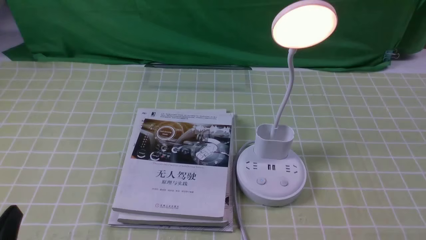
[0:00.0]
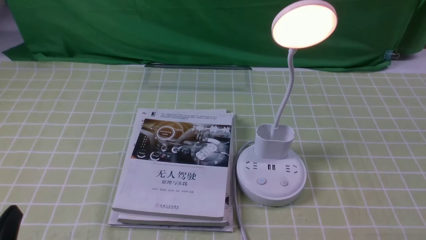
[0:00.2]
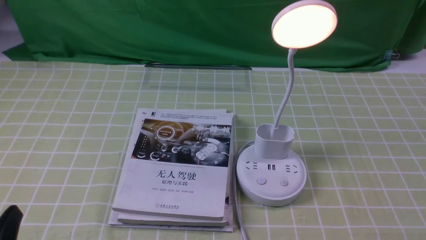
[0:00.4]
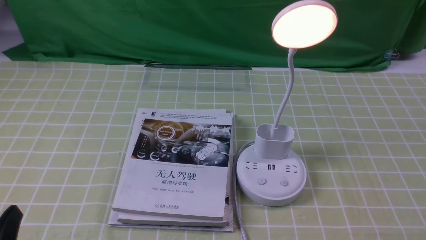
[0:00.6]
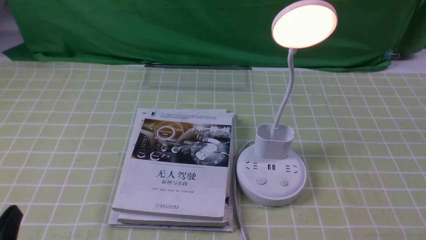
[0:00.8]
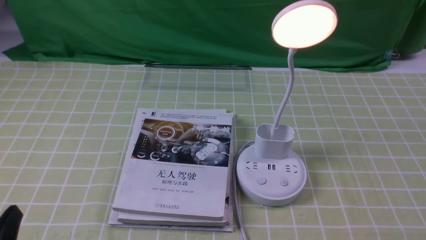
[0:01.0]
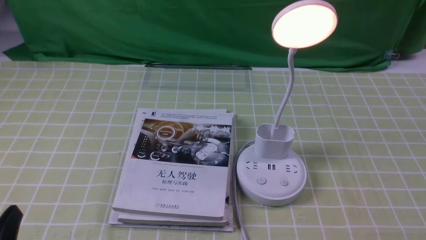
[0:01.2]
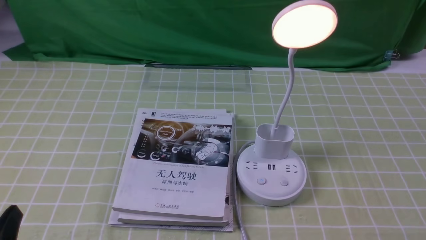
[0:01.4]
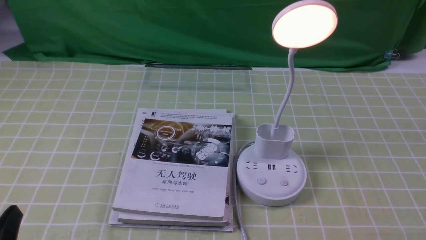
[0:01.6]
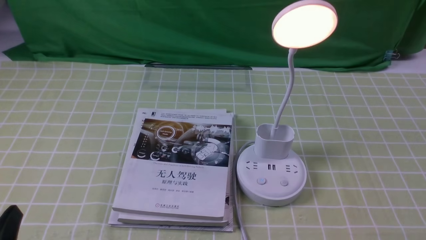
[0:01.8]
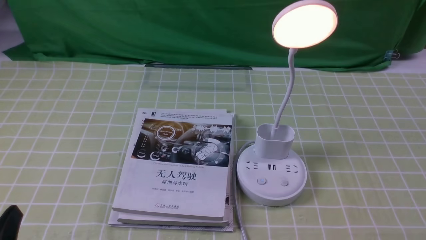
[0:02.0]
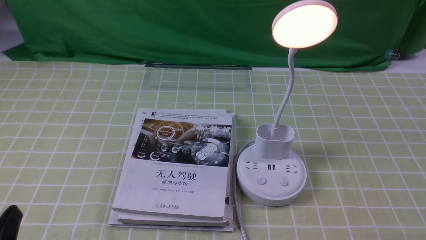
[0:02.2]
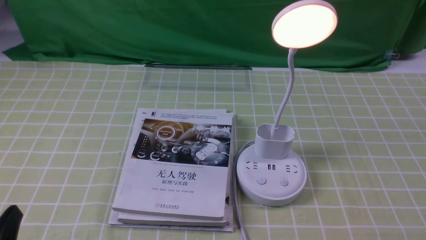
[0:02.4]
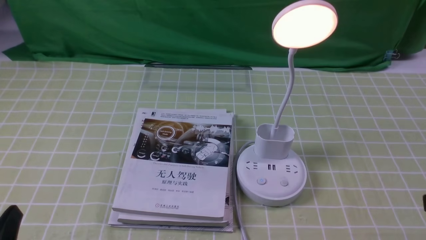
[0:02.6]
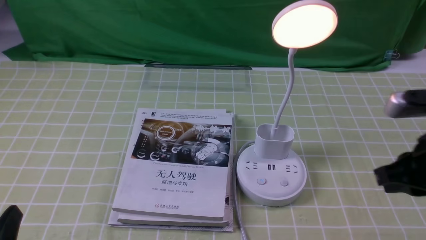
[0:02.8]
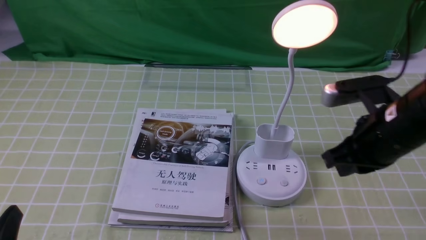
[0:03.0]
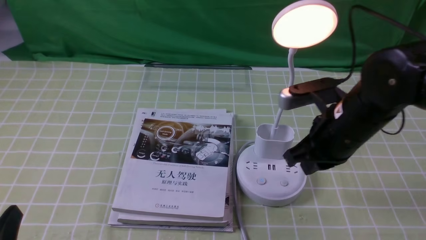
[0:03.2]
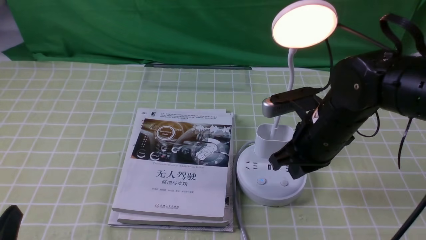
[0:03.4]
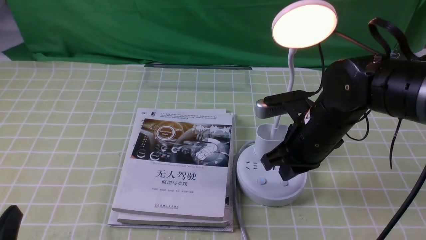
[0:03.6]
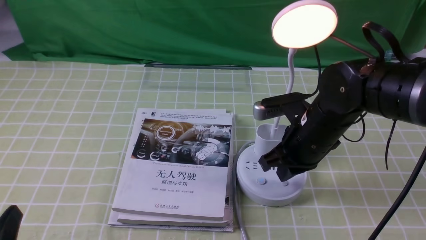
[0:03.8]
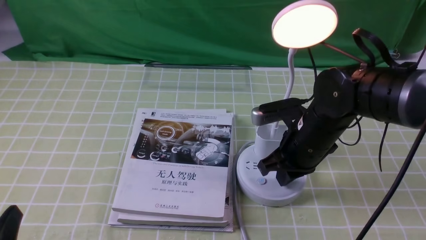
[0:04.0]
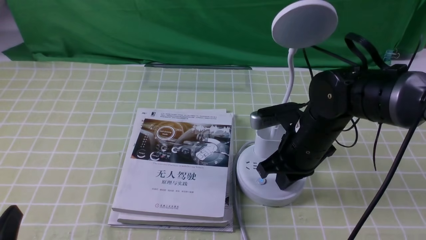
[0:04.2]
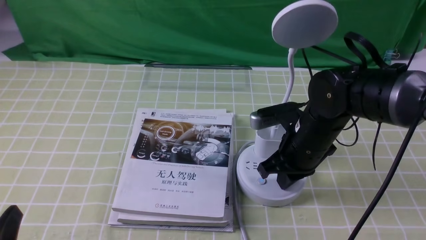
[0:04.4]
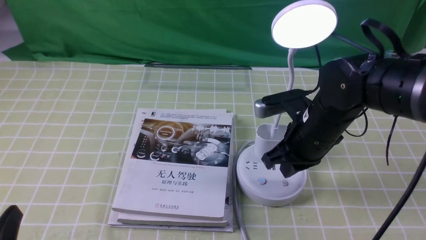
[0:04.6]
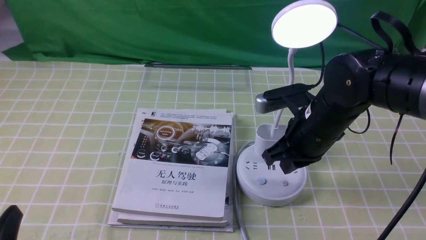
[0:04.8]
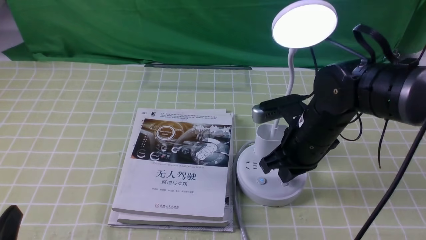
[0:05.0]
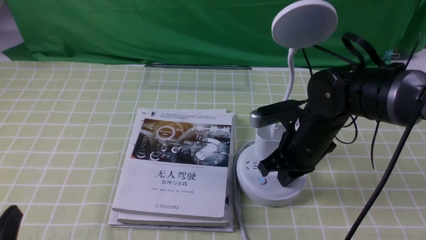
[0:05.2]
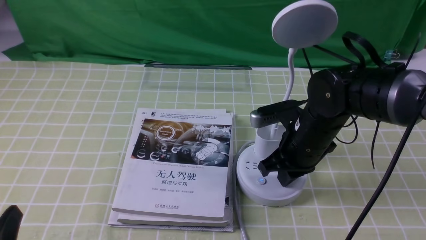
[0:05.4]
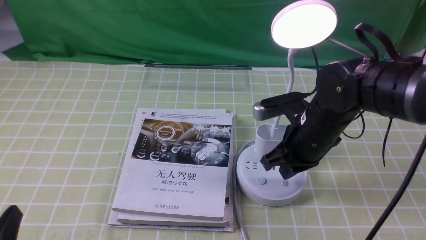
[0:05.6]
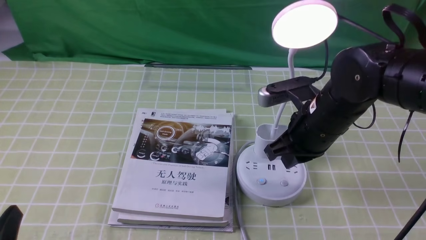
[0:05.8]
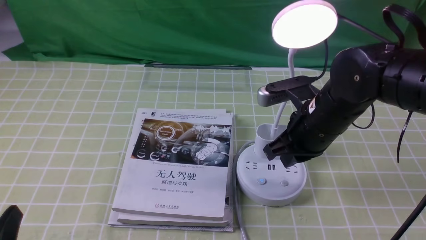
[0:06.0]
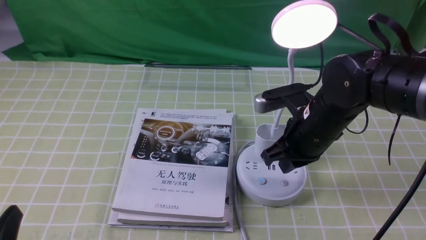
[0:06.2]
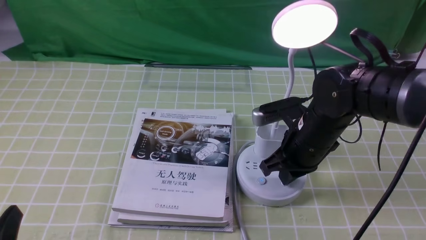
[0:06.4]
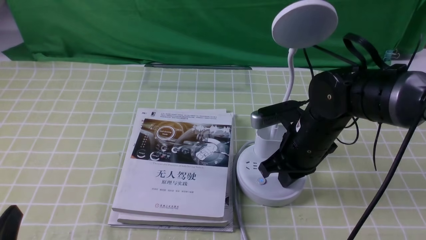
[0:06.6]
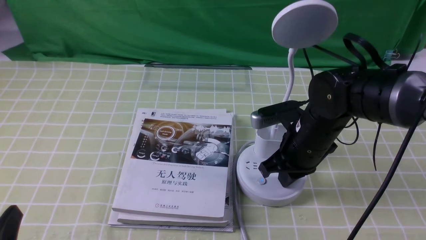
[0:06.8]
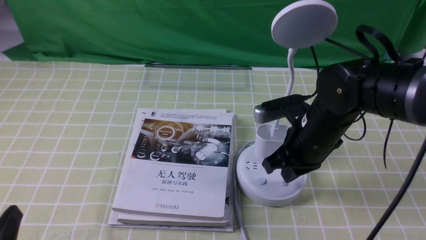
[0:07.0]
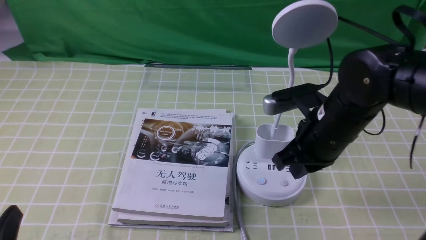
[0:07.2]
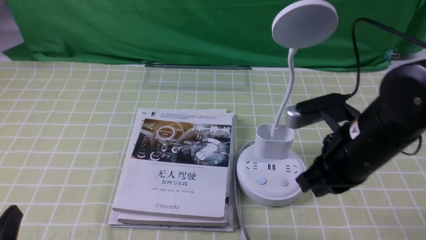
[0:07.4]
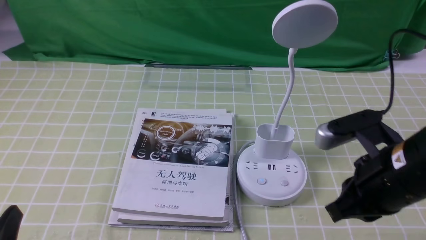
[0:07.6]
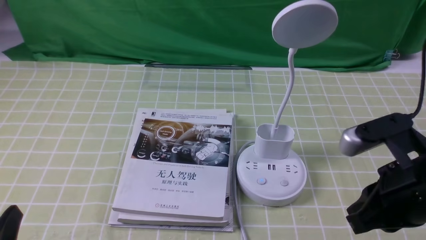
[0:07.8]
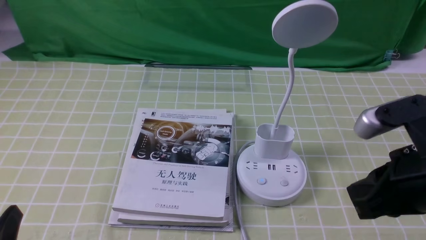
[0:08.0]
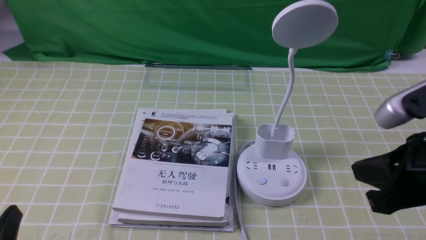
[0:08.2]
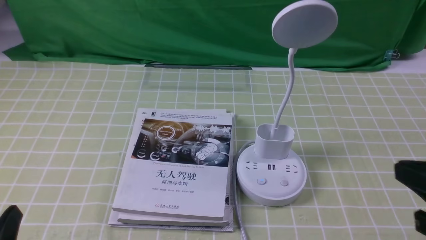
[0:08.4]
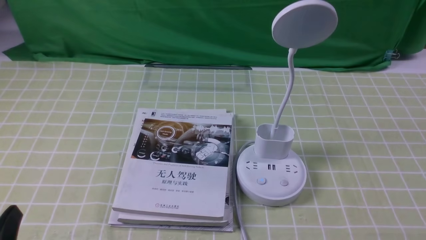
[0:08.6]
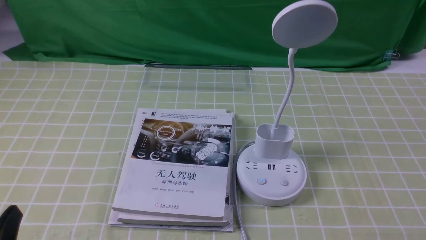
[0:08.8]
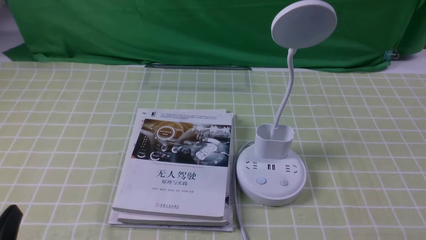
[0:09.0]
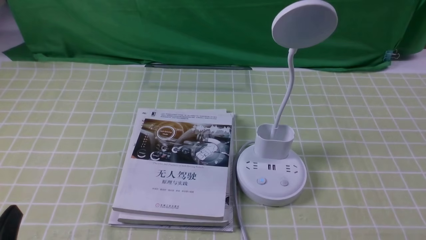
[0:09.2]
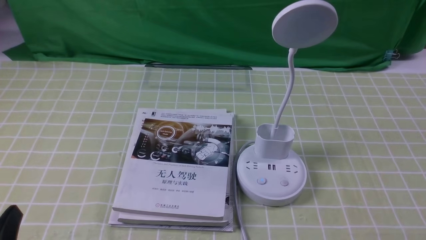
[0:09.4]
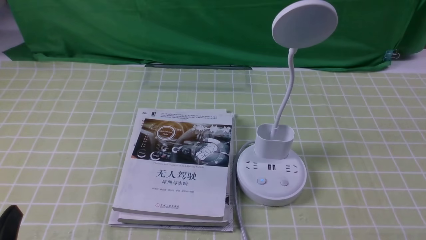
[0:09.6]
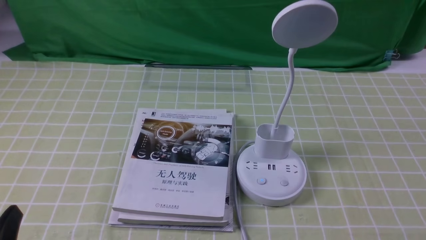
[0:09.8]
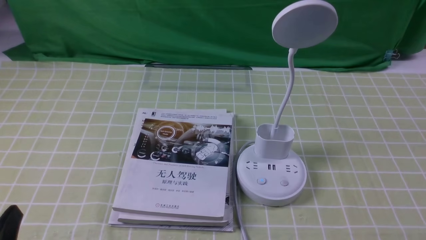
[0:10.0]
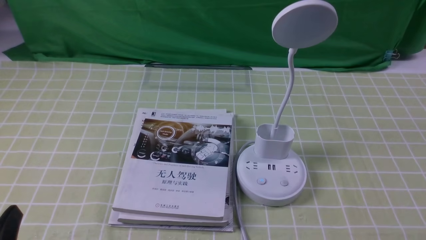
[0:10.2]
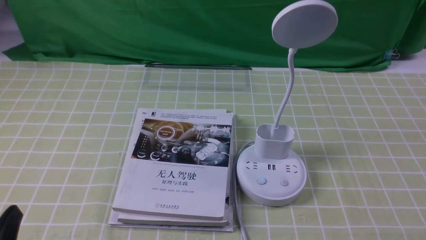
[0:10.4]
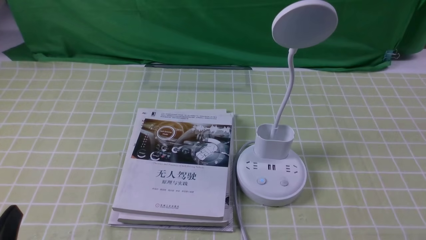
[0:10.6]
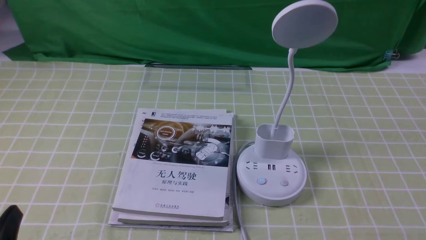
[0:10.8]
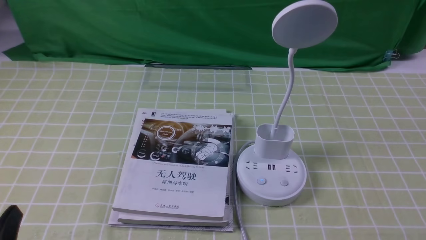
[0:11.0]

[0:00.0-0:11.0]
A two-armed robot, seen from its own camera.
Task of the whole recording: turn off the desk lamp on the green coffee tablecloth by hand.
Step, 0:00.0 to 0:07.0: use the right arm to press the button switch on the lamp holder.
0:01.6 to 0:03.2: The right gripper heads forward and to the left, covering roughly 25 cm, and closes.
0:03.2 to 0:04.8: The right gripper ends up approximately 5 cm from where it was.
0:04.8 to 0:06.2: The grippers make only small movements.
0:06.2 to 0:07.8: The right gripper heads backward, to the right and upward, covering approximately 15 cm.
0:07.8 to 0:09.4: The right gripper goes some 20 cm backward, to the right and downward.
